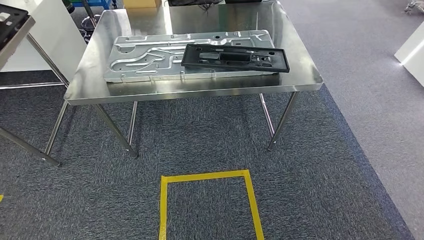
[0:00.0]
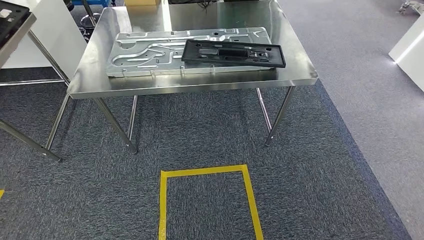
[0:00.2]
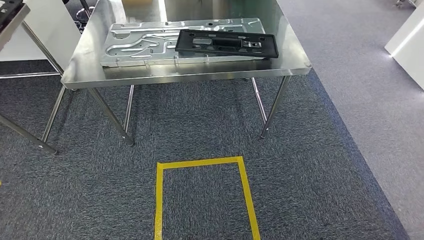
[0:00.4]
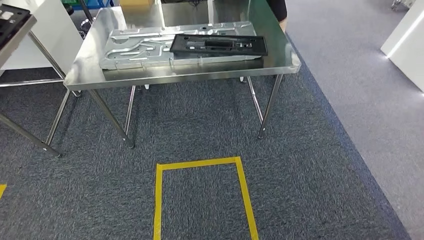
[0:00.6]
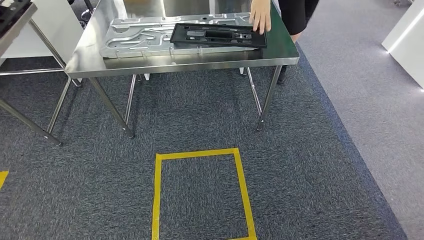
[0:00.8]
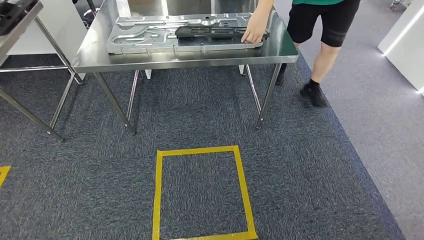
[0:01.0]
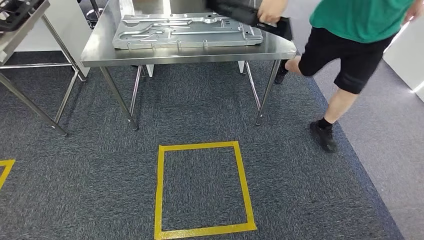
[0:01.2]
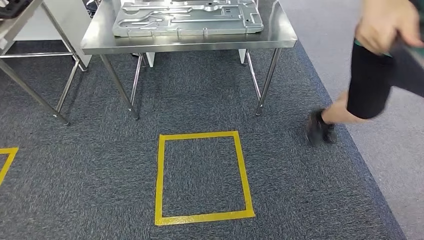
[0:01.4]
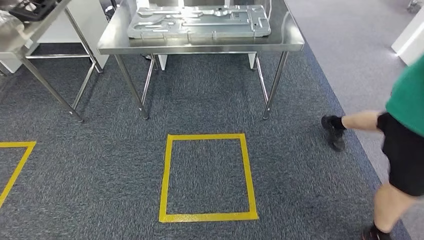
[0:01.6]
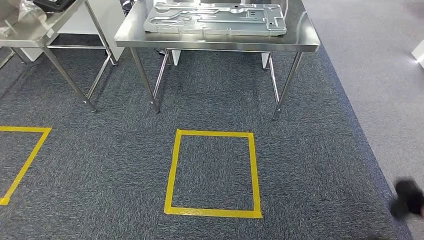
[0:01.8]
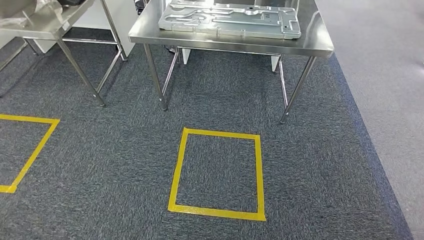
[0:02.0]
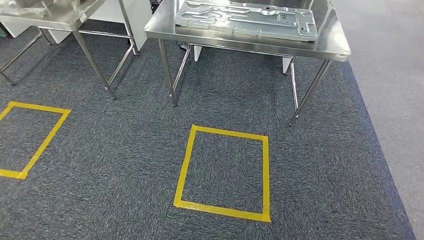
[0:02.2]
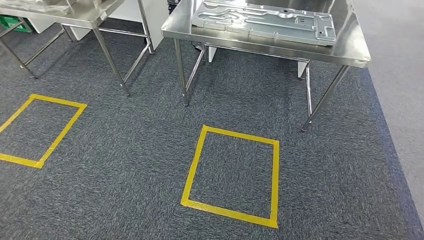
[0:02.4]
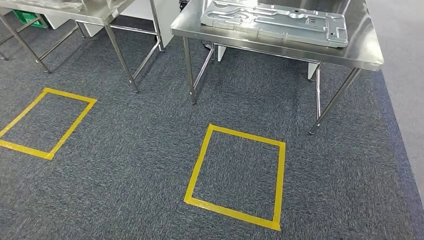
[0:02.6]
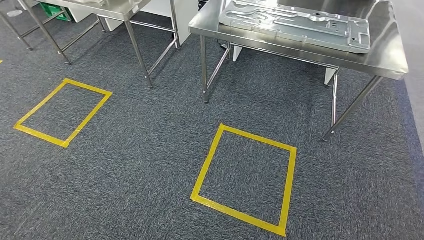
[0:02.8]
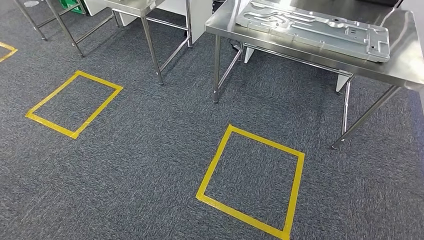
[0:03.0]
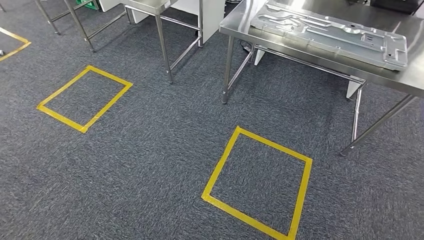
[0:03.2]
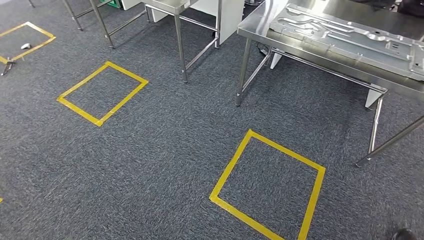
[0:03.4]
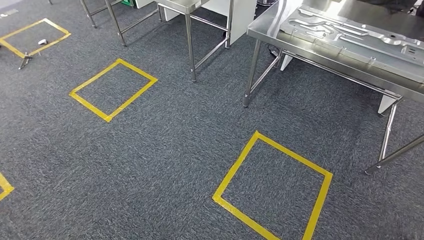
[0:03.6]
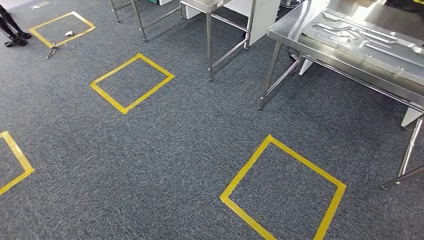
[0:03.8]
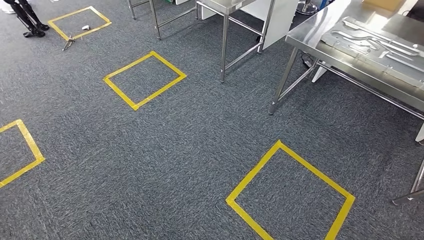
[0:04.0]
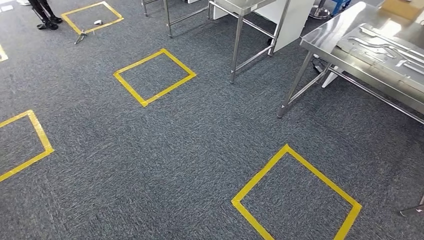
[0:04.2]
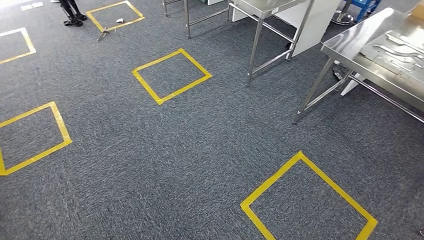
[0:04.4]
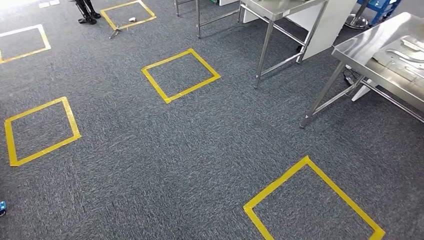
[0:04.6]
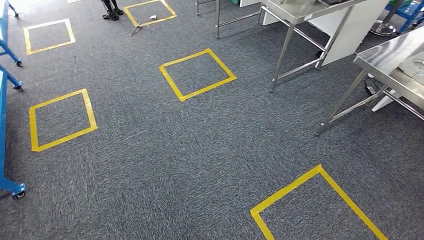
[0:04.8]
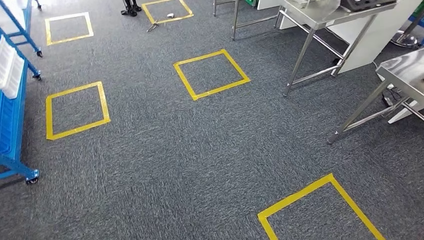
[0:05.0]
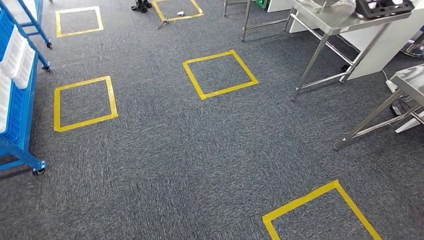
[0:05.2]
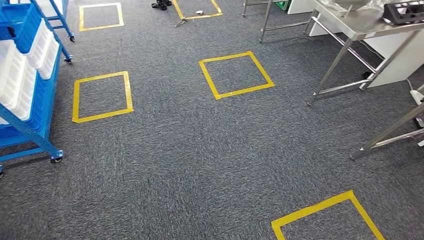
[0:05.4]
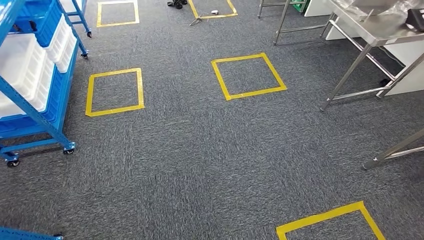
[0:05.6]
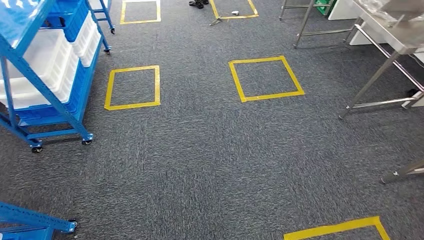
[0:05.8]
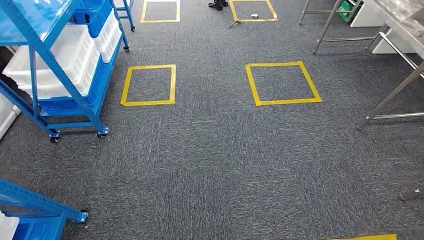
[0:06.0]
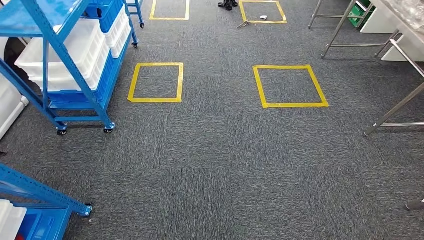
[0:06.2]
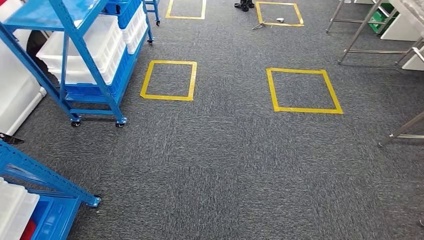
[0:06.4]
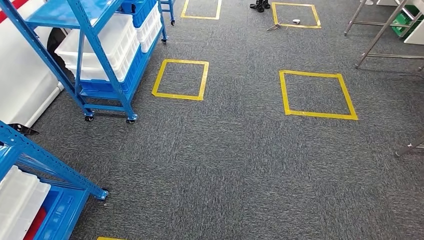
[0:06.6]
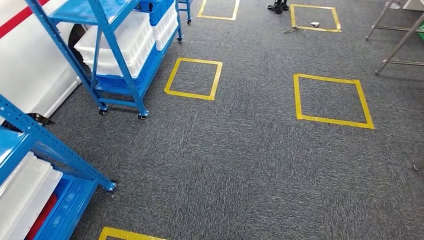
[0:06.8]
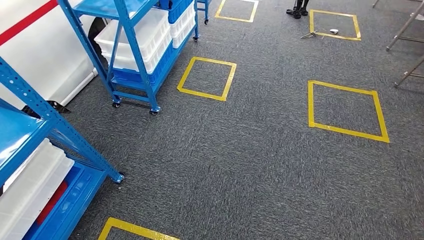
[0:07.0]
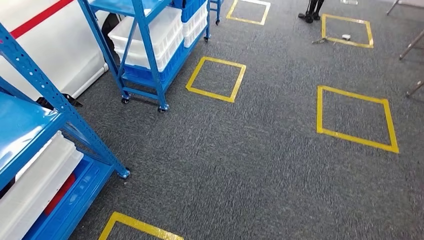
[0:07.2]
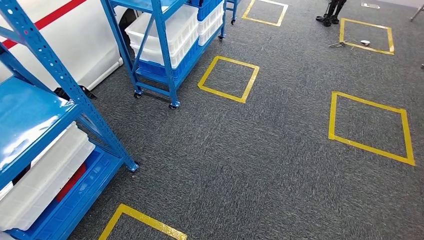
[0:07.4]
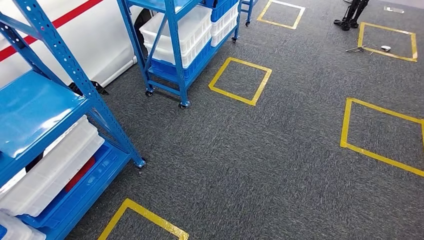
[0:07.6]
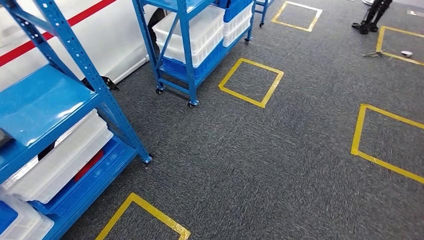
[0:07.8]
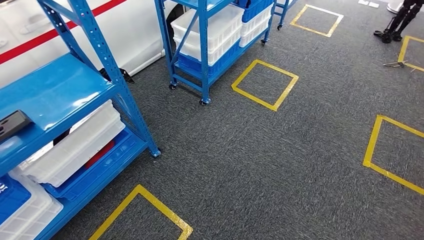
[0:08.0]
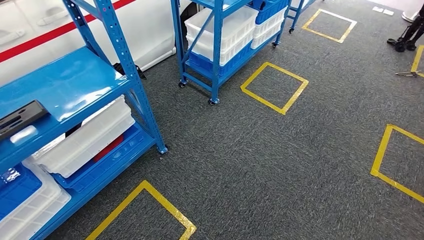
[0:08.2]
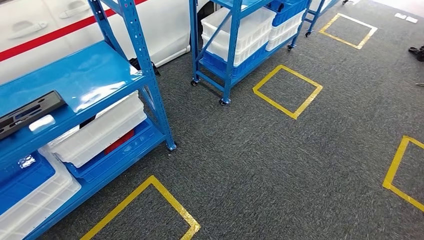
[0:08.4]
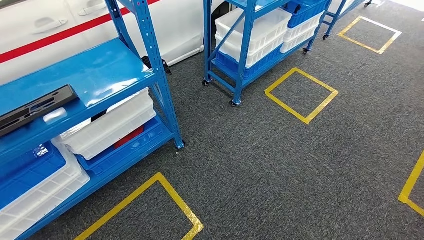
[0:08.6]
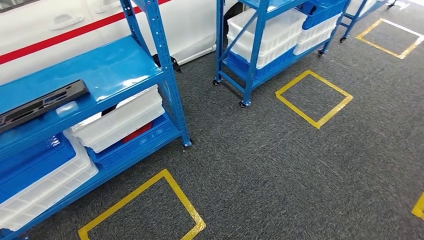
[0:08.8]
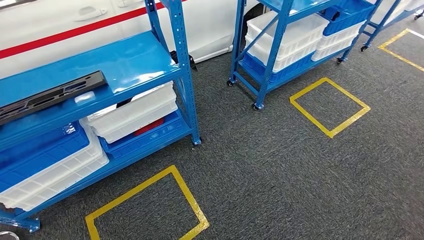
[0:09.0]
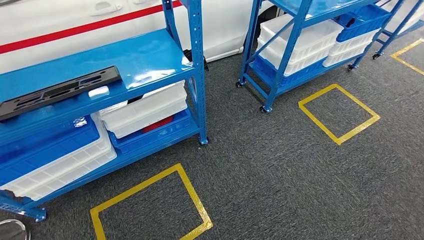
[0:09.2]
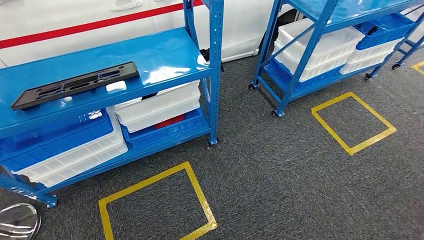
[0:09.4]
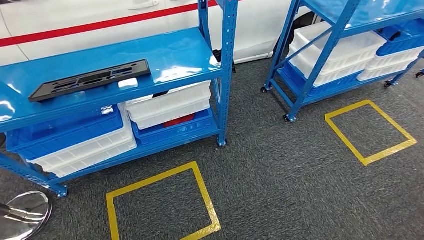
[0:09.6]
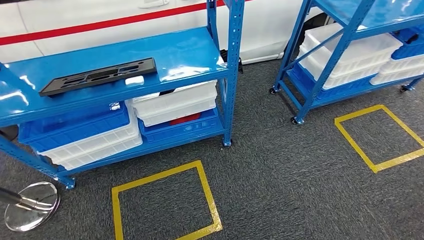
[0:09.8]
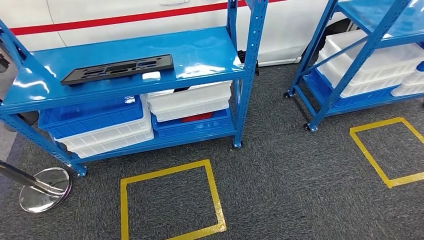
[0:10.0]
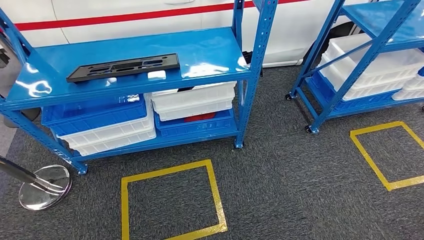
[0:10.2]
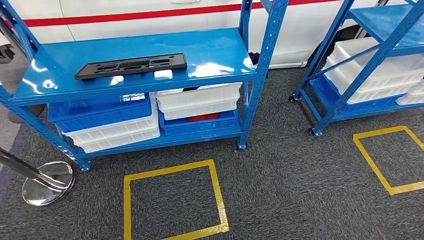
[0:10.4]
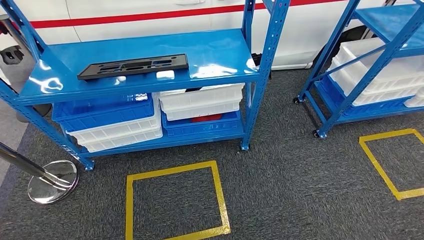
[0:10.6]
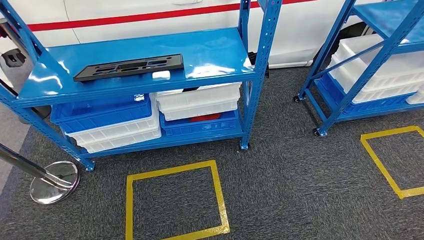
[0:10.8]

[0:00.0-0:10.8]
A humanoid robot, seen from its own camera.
Step, 0:02.4 to 0:10.8: Move to the initial position of the shelf.
